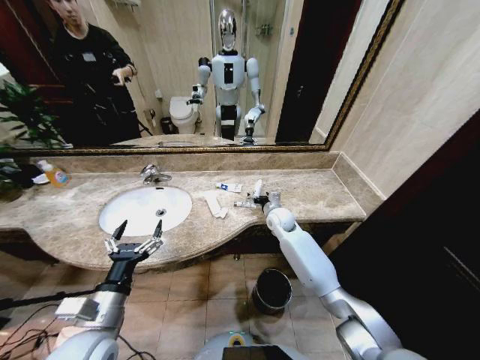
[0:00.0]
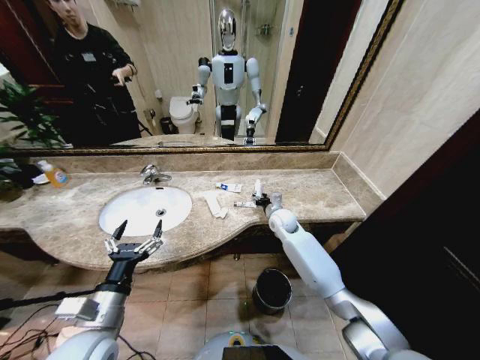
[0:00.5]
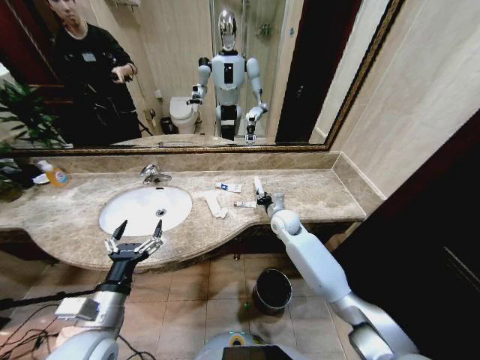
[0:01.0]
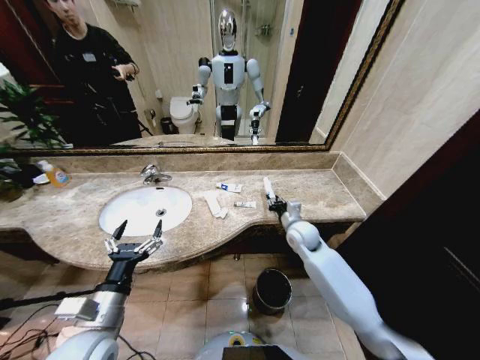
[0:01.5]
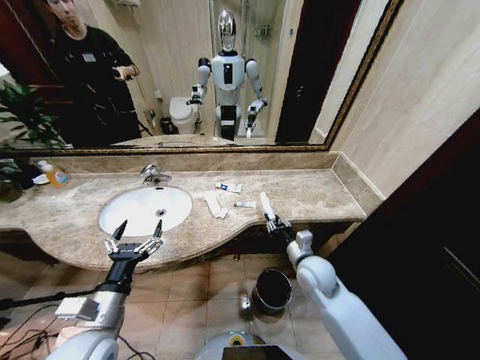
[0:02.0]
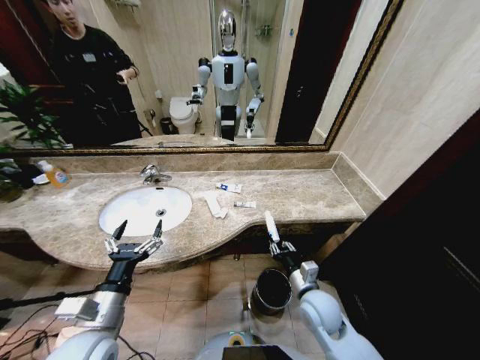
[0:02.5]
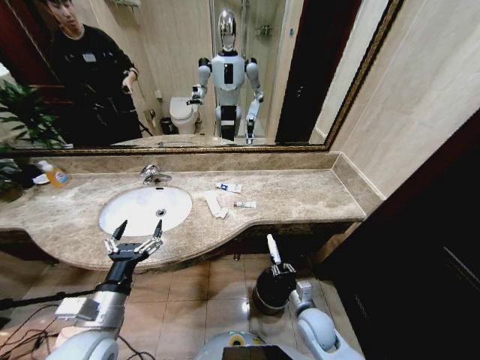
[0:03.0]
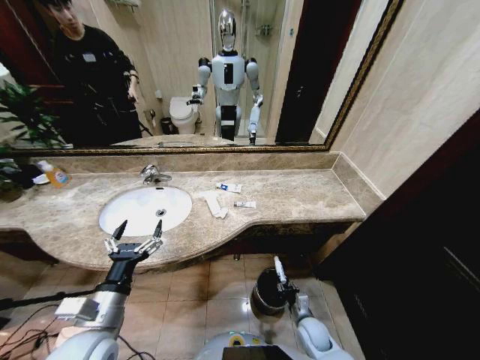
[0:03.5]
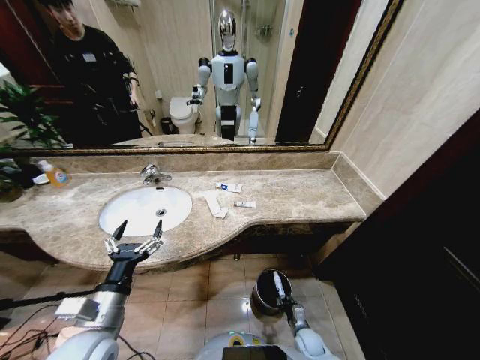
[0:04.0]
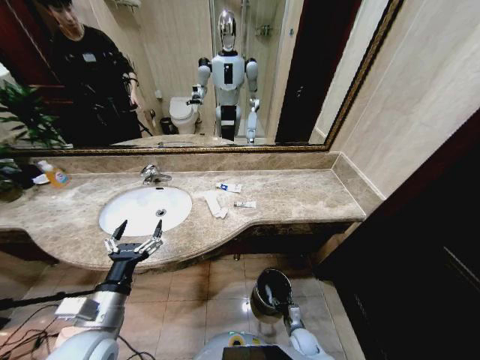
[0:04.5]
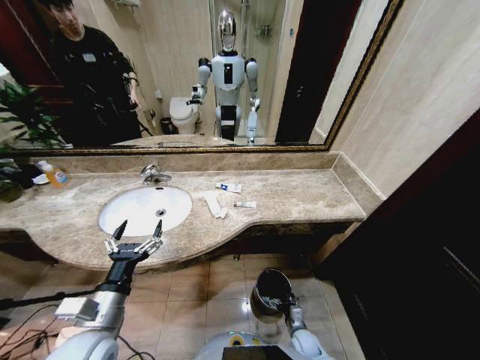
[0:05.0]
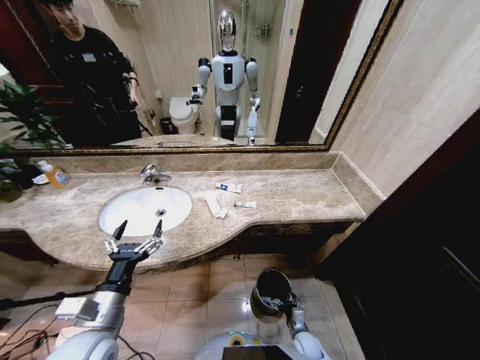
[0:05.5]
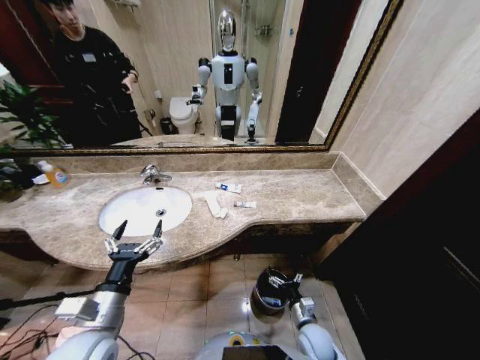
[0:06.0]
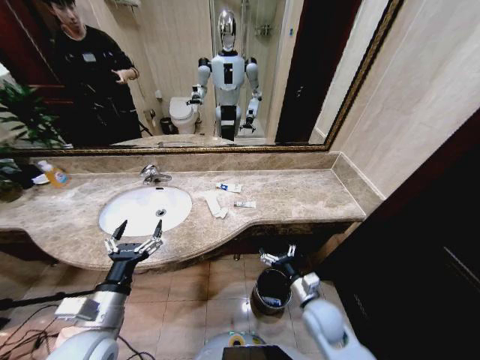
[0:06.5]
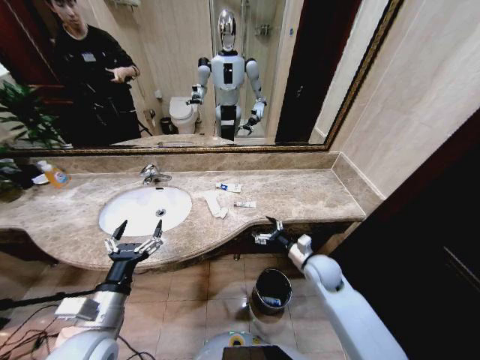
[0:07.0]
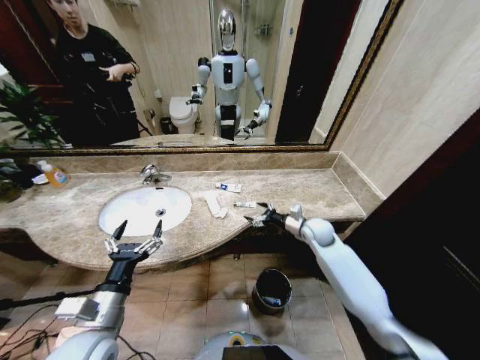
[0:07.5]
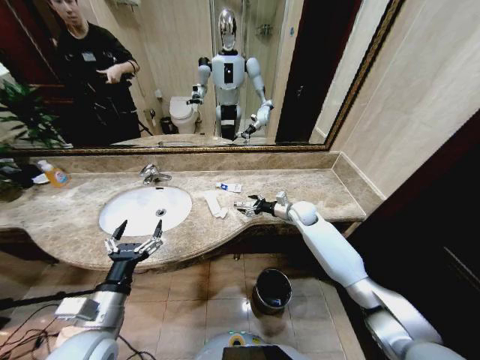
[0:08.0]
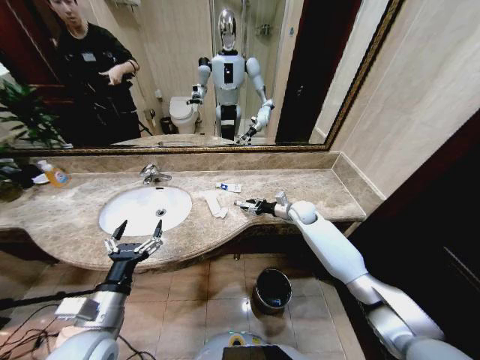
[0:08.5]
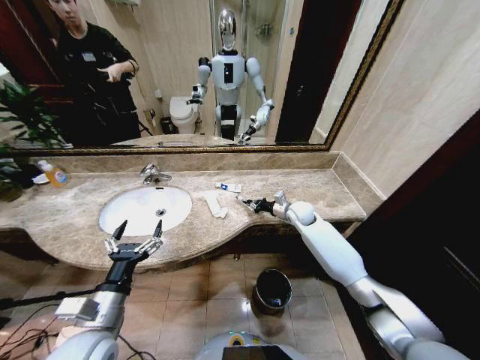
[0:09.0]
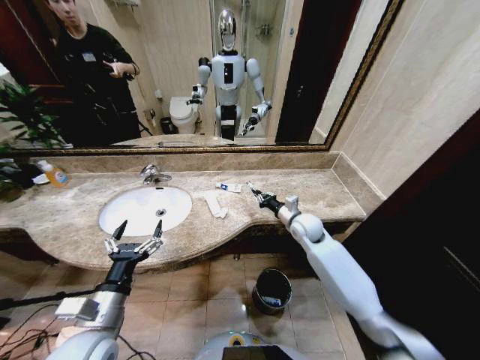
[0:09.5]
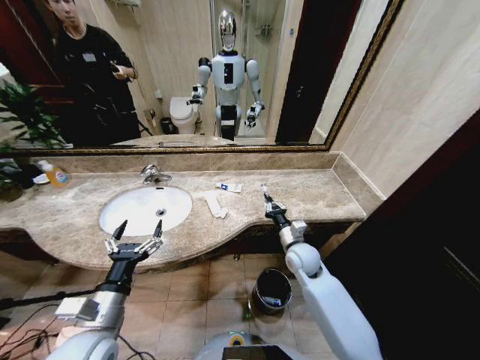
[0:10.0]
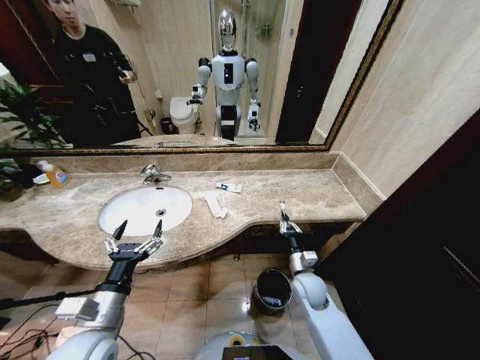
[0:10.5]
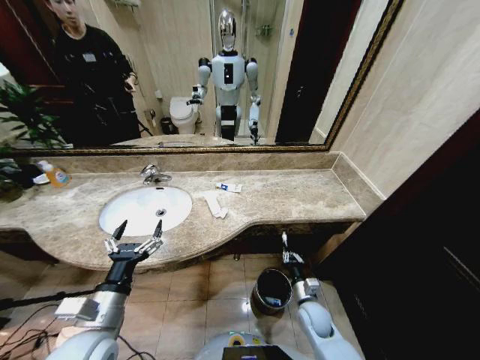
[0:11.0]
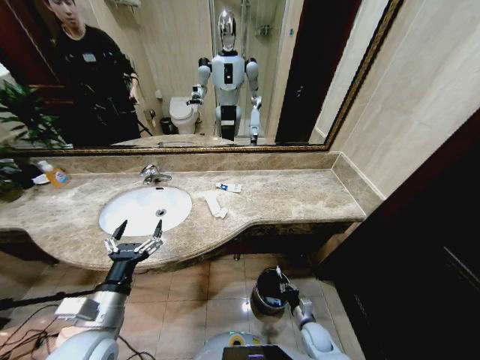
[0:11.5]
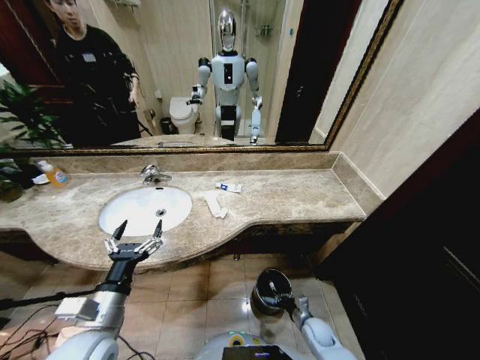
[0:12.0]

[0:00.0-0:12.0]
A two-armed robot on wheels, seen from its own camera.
Task of the whole recording: Pick up the trash from the sink and place it in the trash bin.
0:00.0 to 0:02.0: The right gripper shifts approximately 20 cm backward, and closes.
0:02.0 to 0:04.0: The right gripper shifts about 30 cm downward.
0:04.0 to 0:06.0: The right gripper heads upward, covering some 15 cm, and opens.
0:06.0 to 0:08.0: The right gripper goes approximately 40 cm forward and upward.
0:08.0 to 0:10.0: The right gripper is displaced backward by about 15 cm, and closes.
0:10.0 to 0:12.0: The right gripper is displaced downward and backward by about 30 cm.

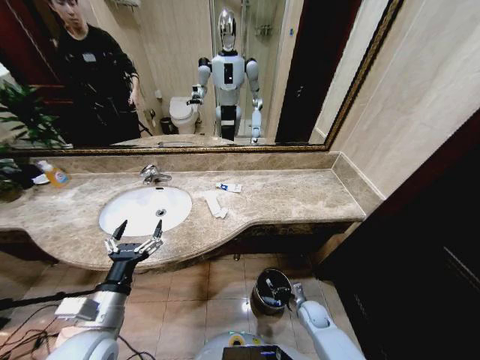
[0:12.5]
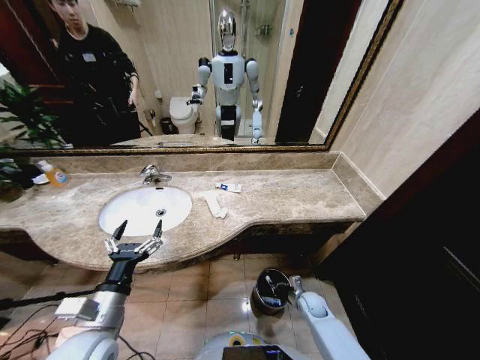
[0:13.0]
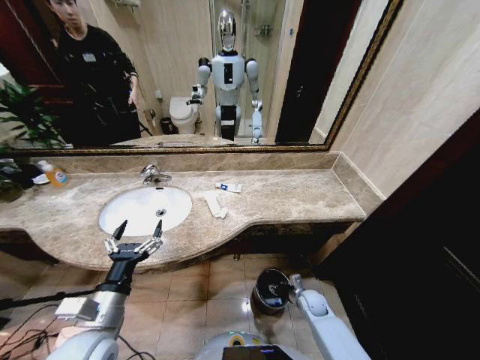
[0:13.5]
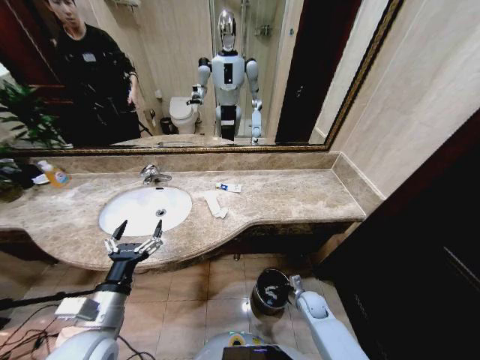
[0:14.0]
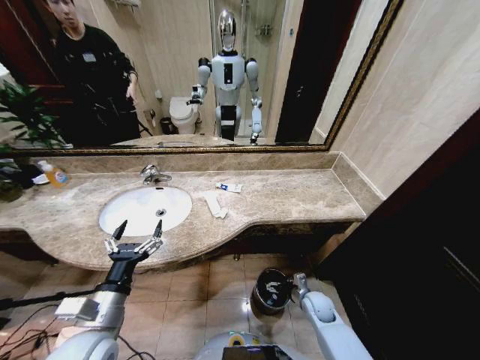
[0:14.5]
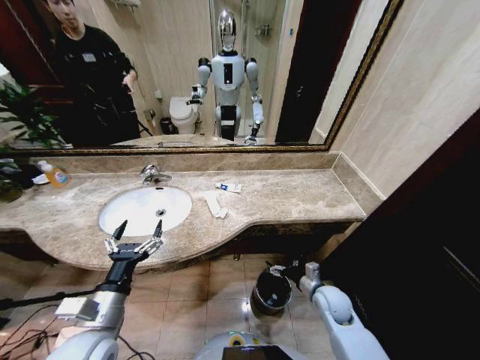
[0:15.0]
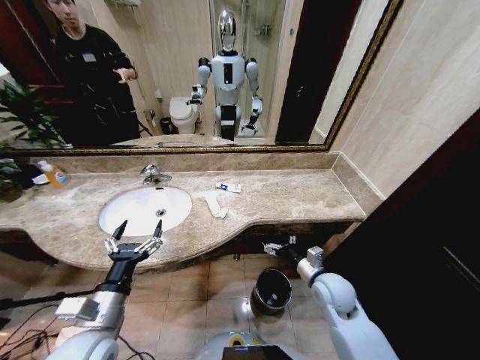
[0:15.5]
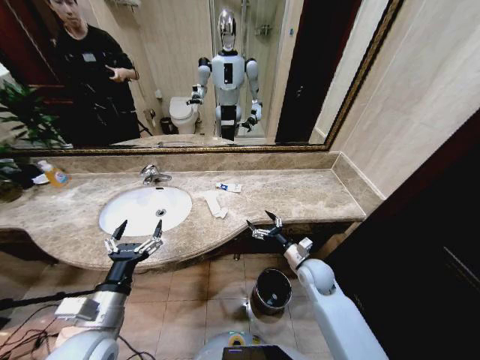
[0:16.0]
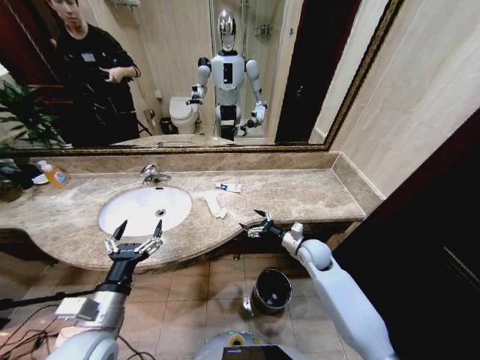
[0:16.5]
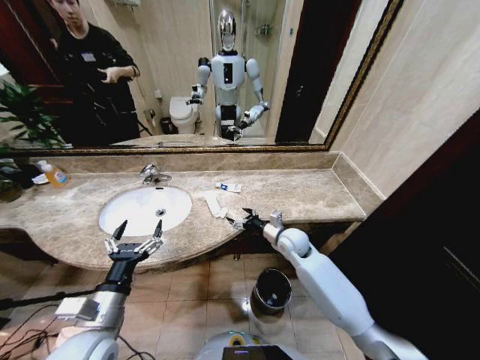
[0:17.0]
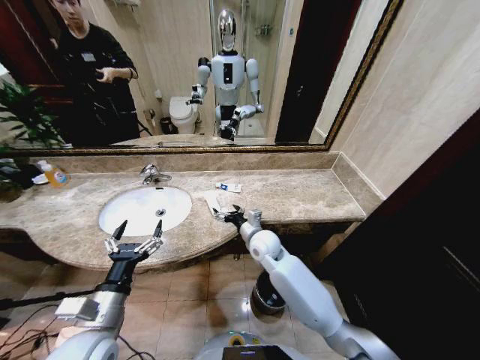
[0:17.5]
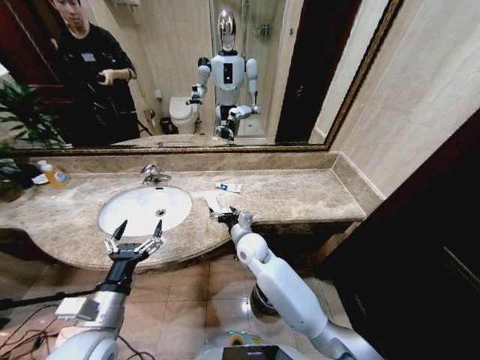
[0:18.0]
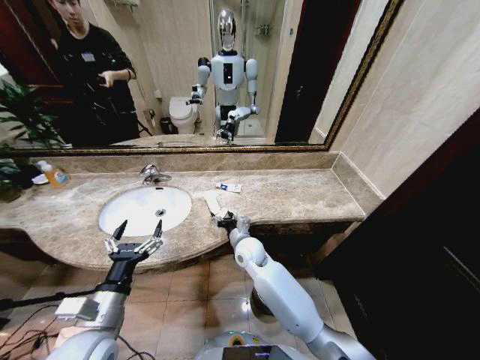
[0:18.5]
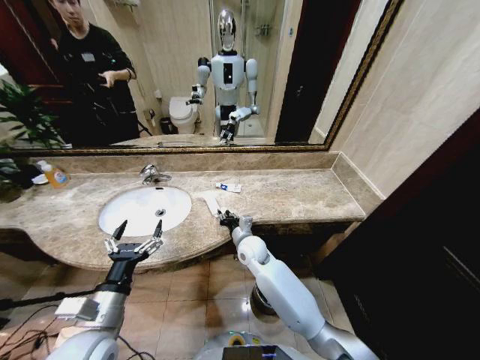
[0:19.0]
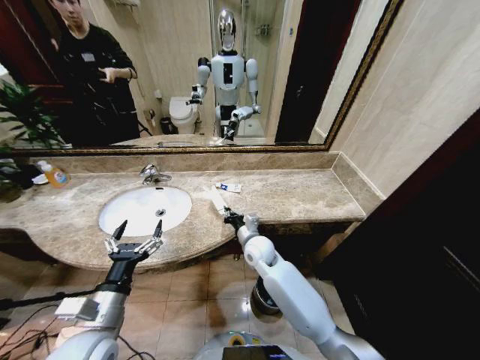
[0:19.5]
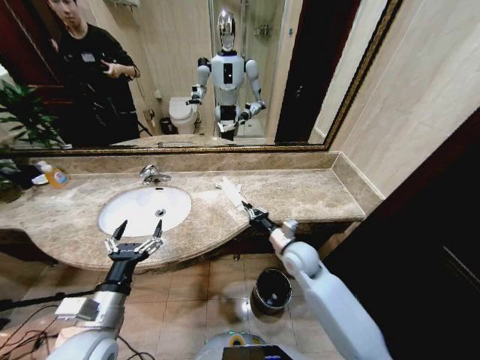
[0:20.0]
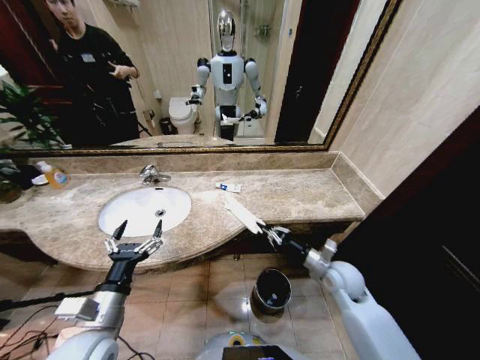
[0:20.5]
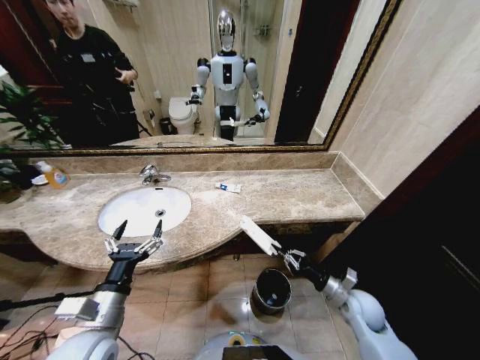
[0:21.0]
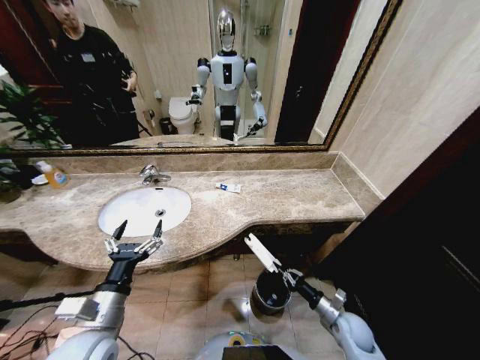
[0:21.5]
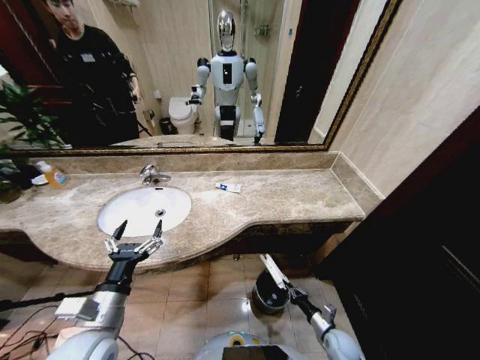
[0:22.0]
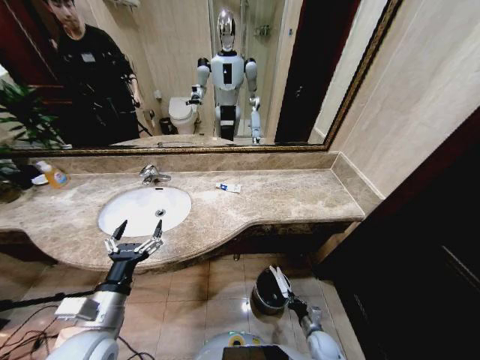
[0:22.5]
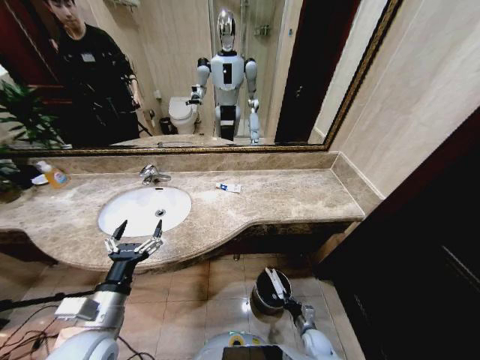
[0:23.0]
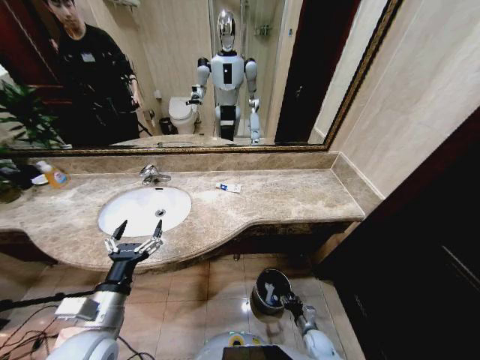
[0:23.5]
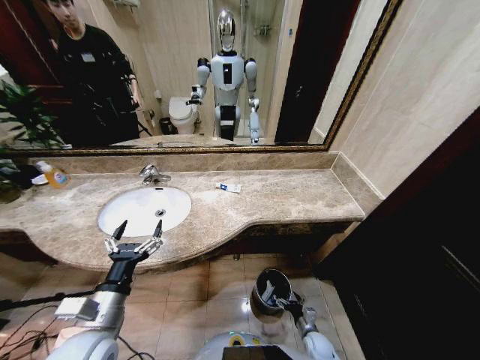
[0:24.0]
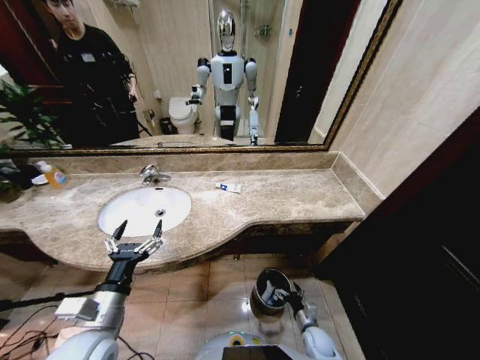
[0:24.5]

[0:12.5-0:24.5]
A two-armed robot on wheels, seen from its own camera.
Task of the whole recording: Pick up the trash from the sink and place it in the trash bin.
0:12.5 to 0:14.5: The right gripper shifts roughly 5 cm upward, and opens its fingers.
0:14.5 to 0:16.5: The right gripper heads upward and forward, covering some 20 cm.
0:16.5 to 0:18.5: The right gripper shifts about 20 cm to the left.
0:18.5 to 0:20.5: The right gripper travels to the right by roughly 25 cm, and closes.
0:20.5 to 0:22.5: The right gripper shifts approximately 30 cm downward.
0:22.5 to 0:24.5: The right gripper opens up.

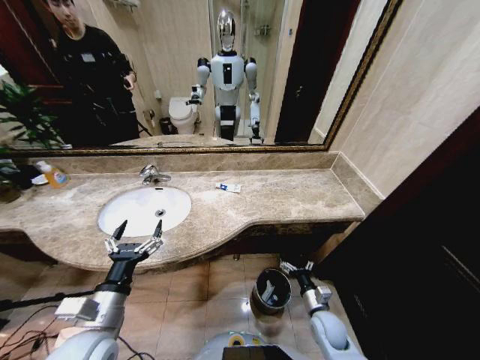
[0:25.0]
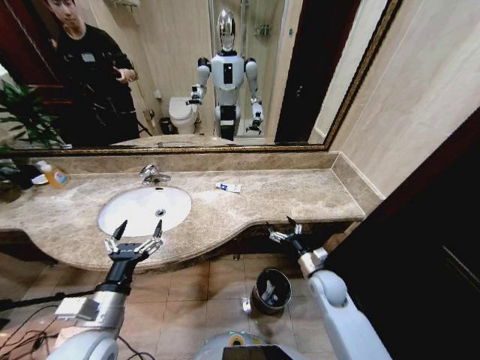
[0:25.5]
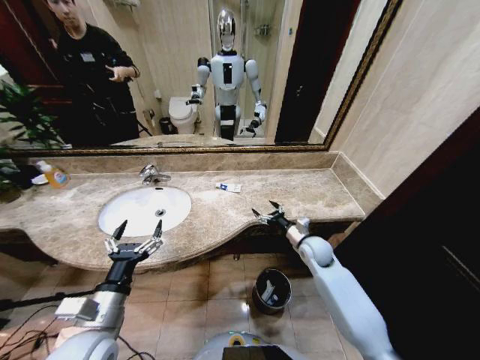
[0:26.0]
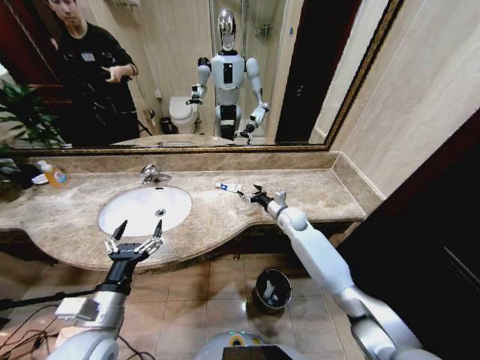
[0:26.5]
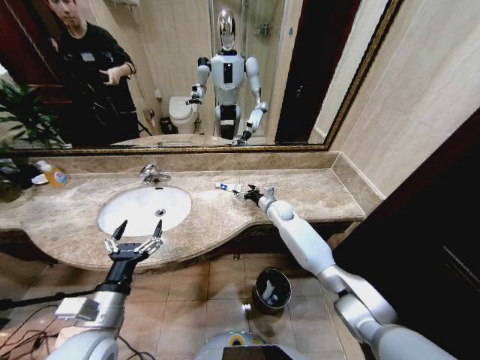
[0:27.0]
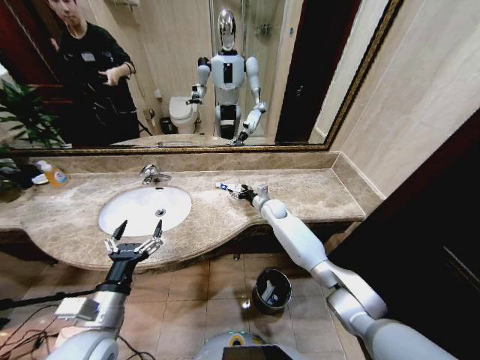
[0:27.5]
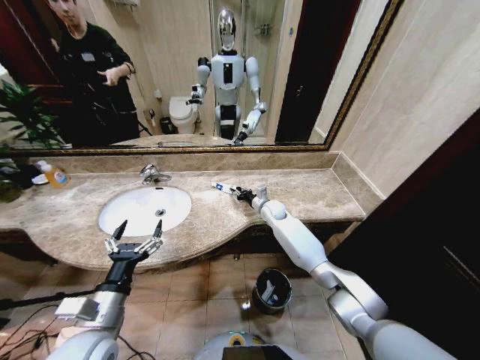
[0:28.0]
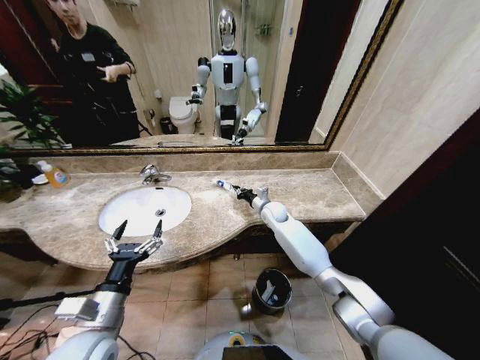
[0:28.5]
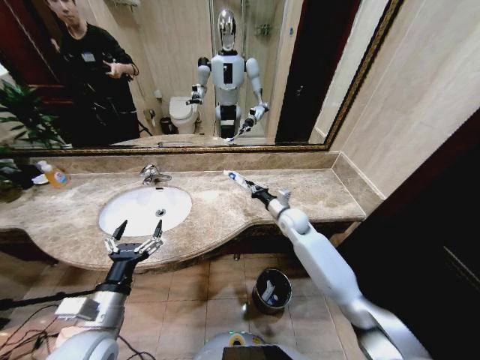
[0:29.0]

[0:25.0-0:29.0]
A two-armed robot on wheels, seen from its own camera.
Task of the whole recording: Pick up the trash from the sink and place it in the trash bin.
0:25.0 to 0:27.0: The right gripper heads forward and upward, covering about 40 cm.
0:27.0 to 0:29.0: The right gripper travels backward by approximately 10 cm, and closes its fingers.
